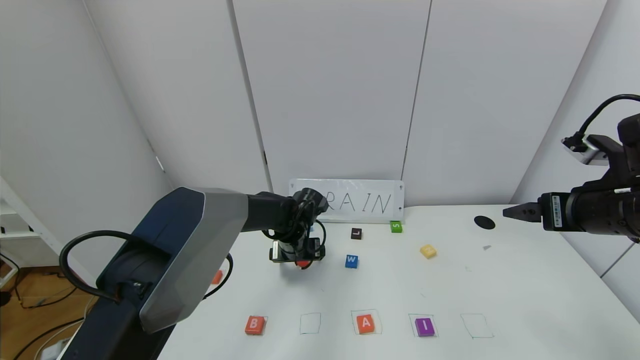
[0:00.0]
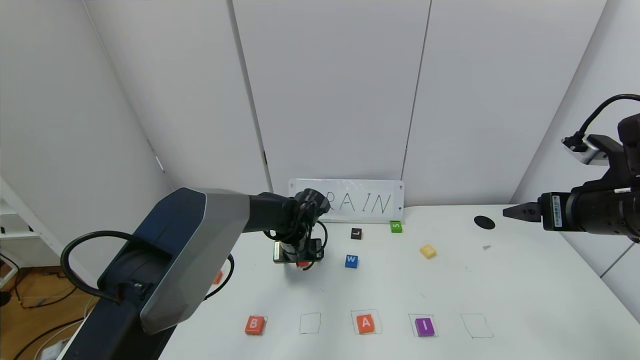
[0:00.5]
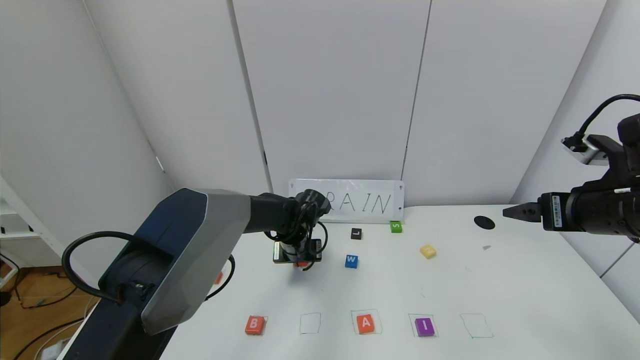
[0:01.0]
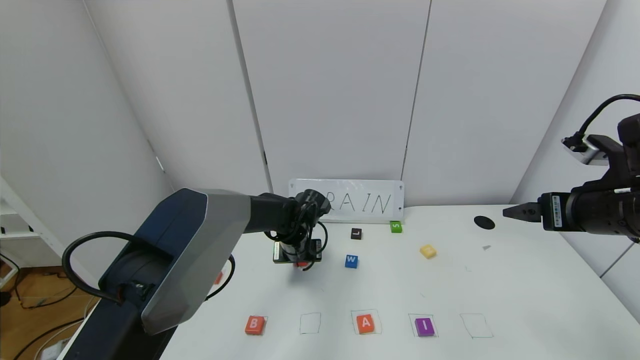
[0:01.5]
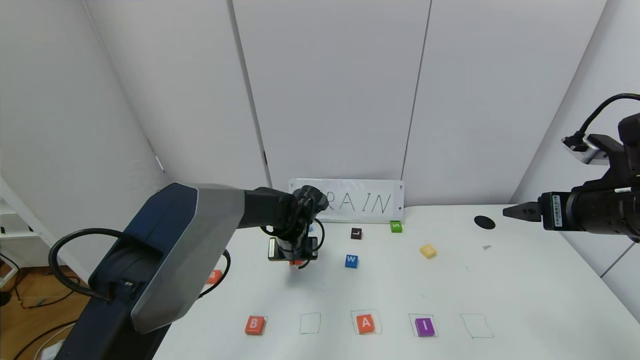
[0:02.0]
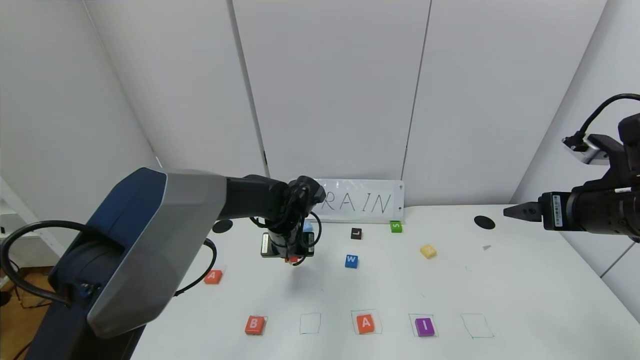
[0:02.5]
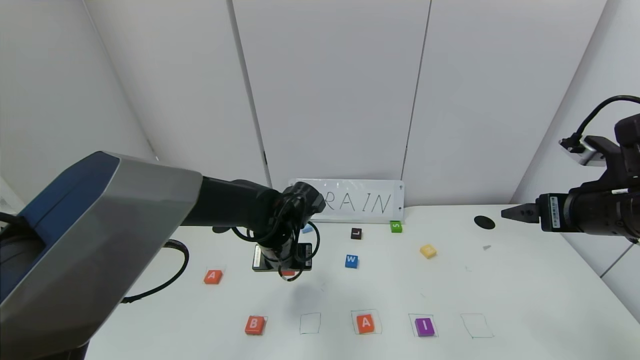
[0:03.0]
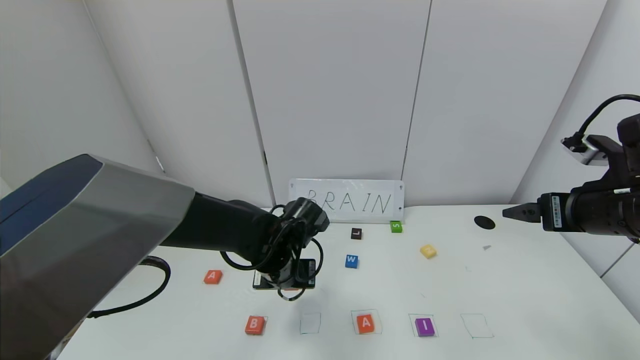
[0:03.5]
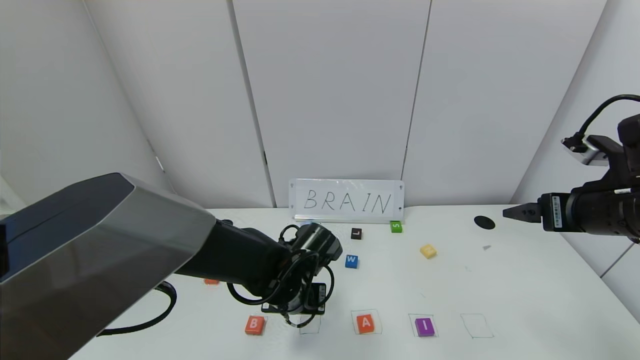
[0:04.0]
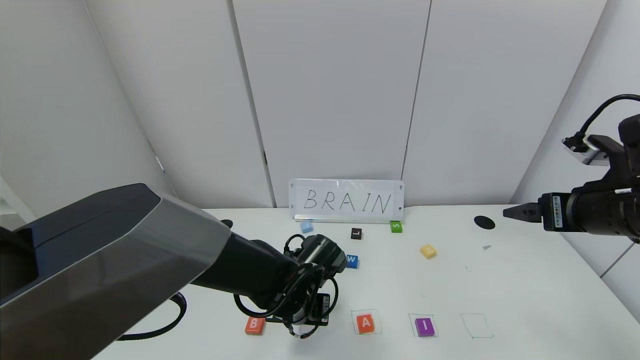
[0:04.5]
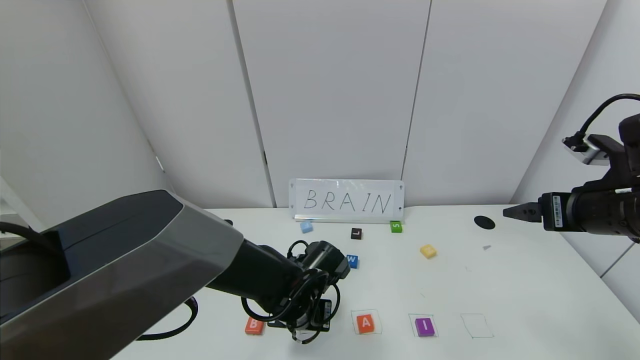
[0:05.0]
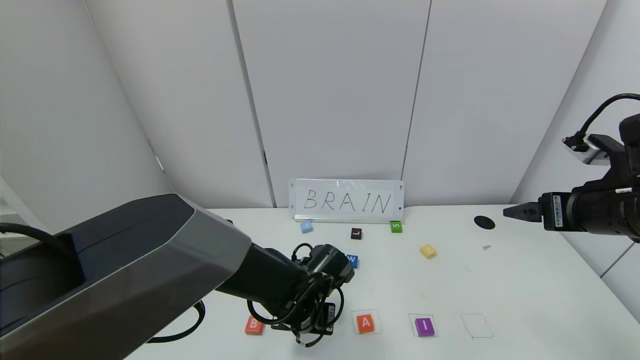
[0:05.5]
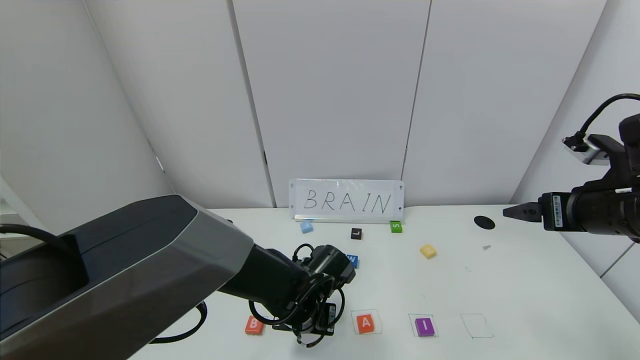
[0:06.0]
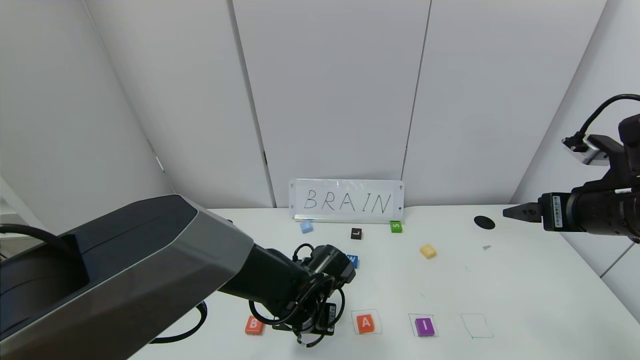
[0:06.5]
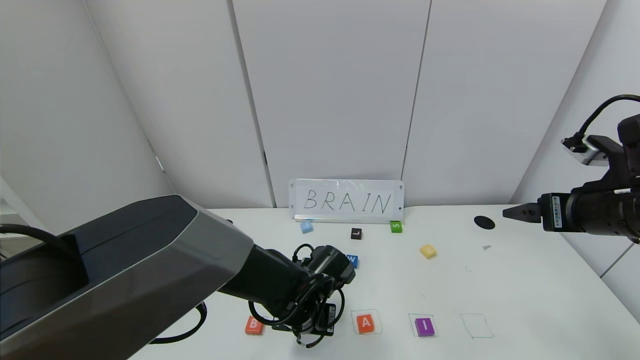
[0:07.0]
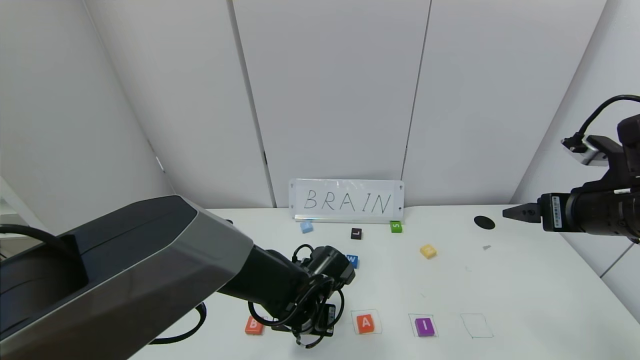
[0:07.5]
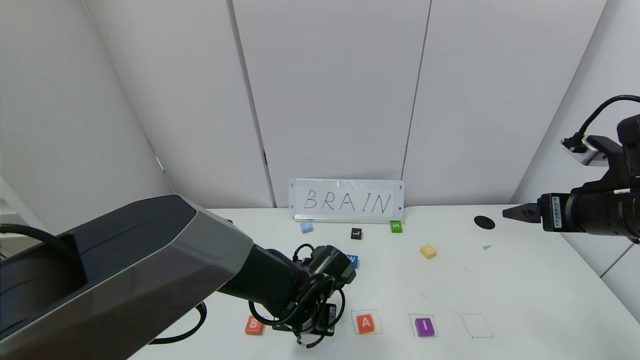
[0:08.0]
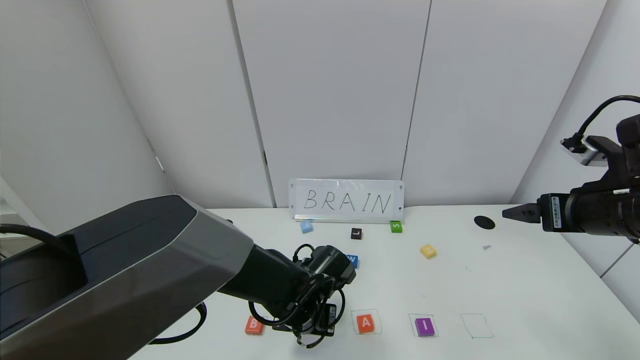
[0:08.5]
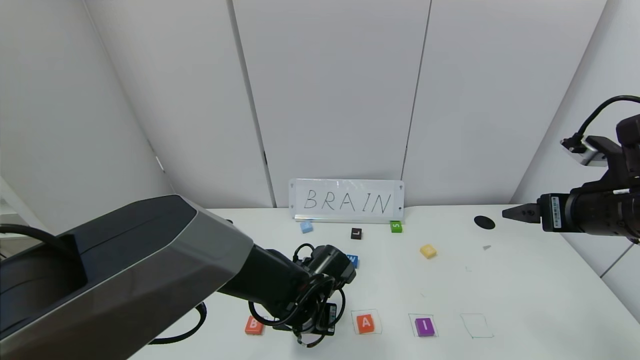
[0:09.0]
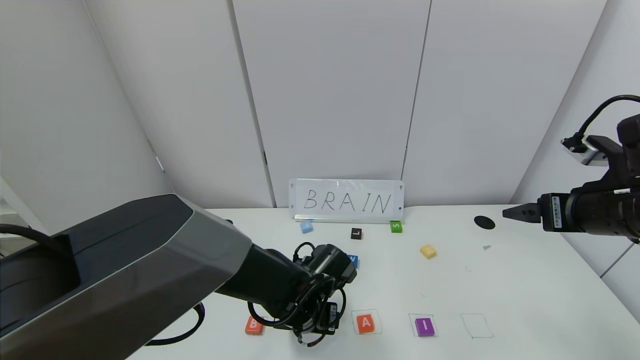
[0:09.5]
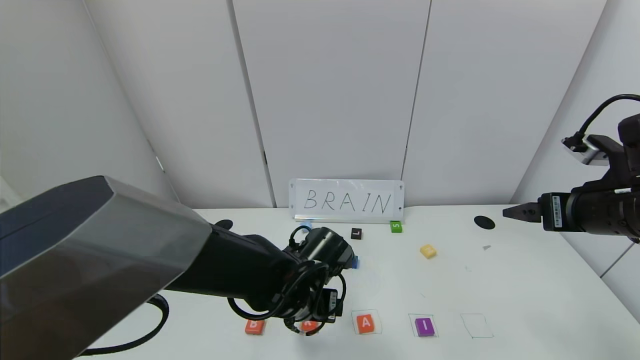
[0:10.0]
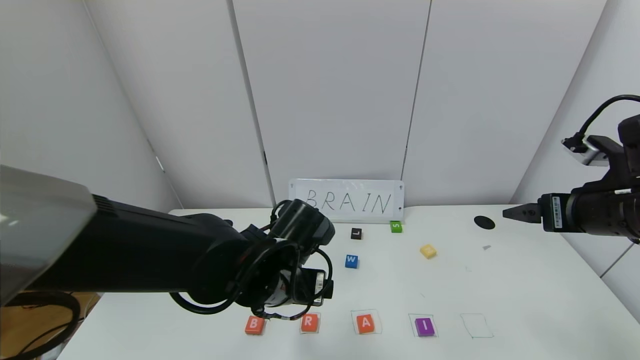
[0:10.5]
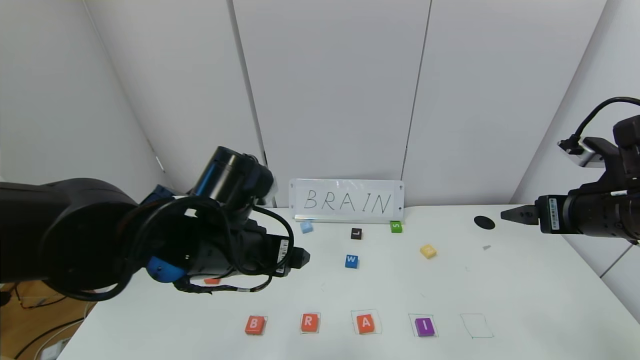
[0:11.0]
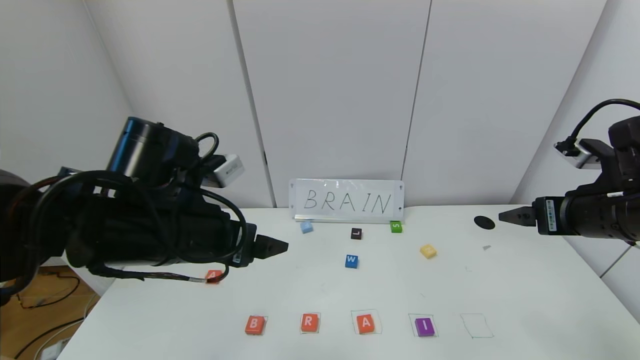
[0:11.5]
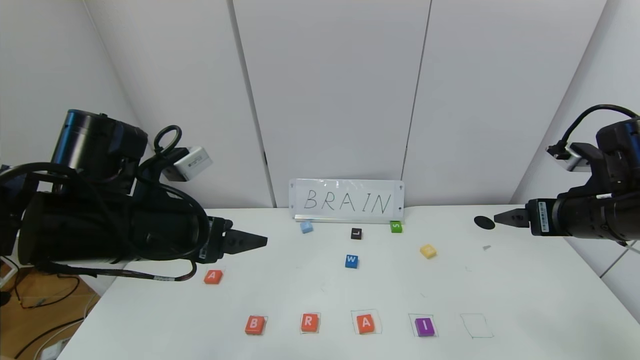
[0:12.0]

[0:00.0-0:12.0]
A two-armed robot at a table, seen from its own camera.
Task of the whole recording: use the gripper to find blocks with the letters b, a, a, and i on the table and arrange them into BAAI, then find r and N and turn the arranged baai into brian.
Step, 0:00.0 to 0:10.0: Place the block R in the second location.
0:00.0 to 0:02.0: The left gripper closes up.
0:02.0 to 0:04.0: The left gripper is displaced backward by some 15 cm.
0:04.0 to 0:06.0: There are only small adjustments of the grippers.
0:06.0 to 0:08.0: Both grippers stay about where they are.
0:08.0 to 0:10.0: The left gripper changes place by approximately 5 cm, and opens up.
0:10.0 to 0:12.0: The left gripper travels to the left and upward by some 20 cm.

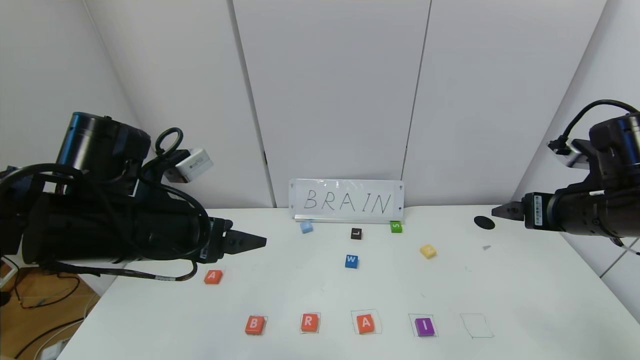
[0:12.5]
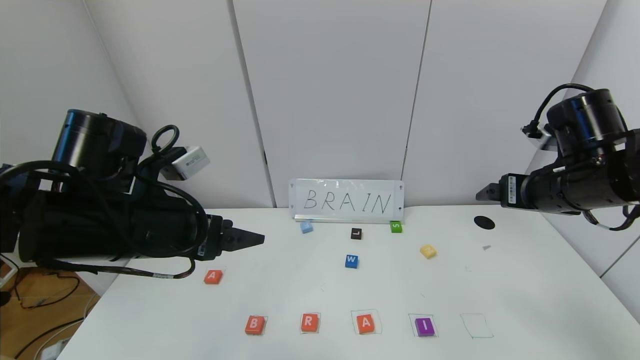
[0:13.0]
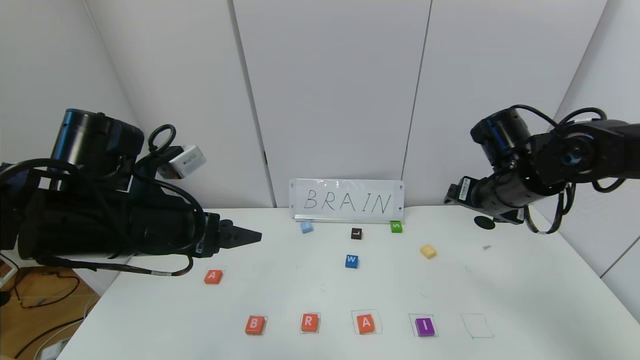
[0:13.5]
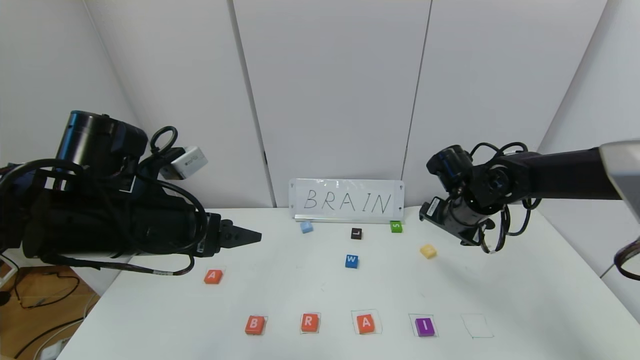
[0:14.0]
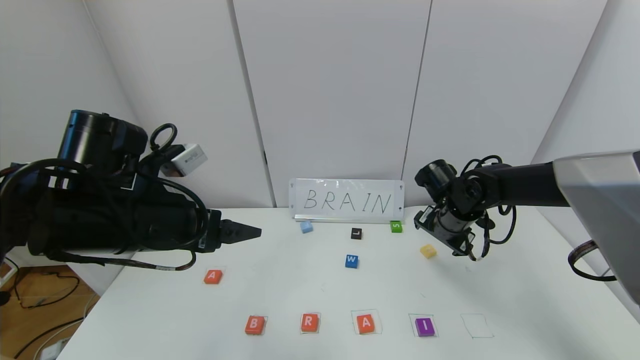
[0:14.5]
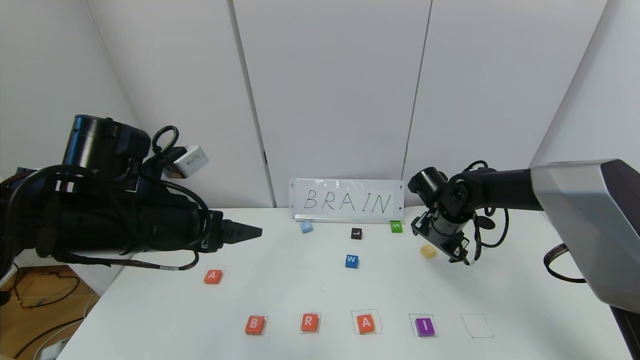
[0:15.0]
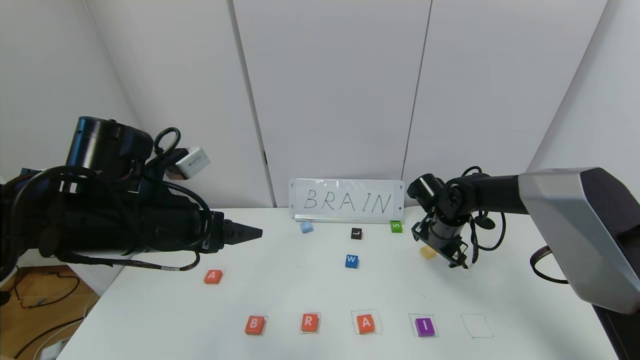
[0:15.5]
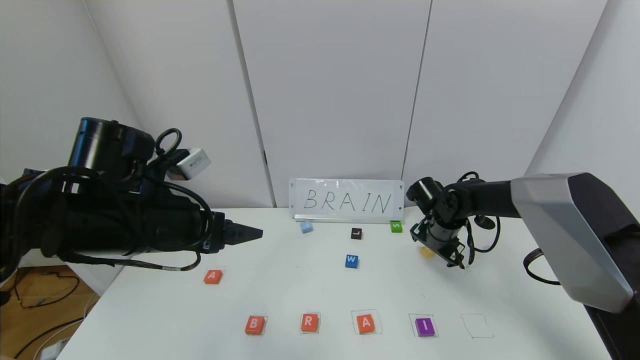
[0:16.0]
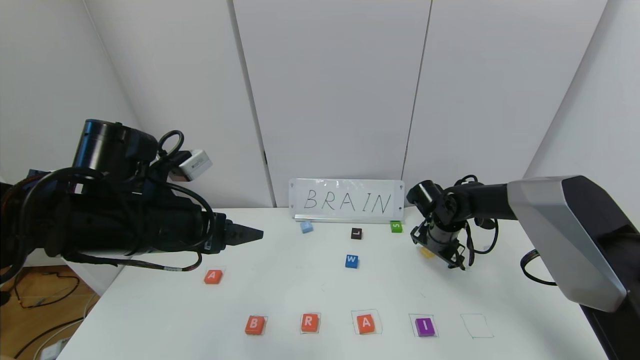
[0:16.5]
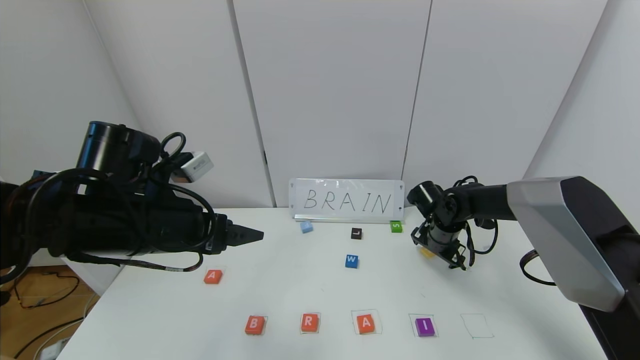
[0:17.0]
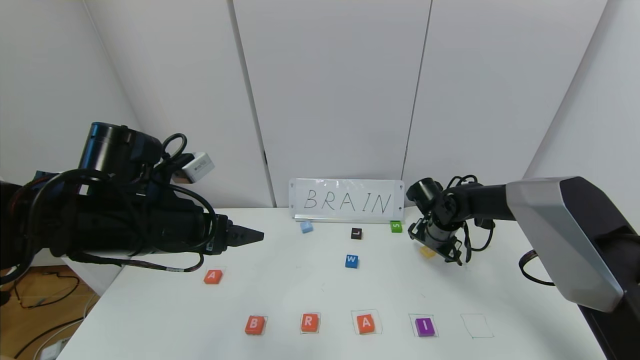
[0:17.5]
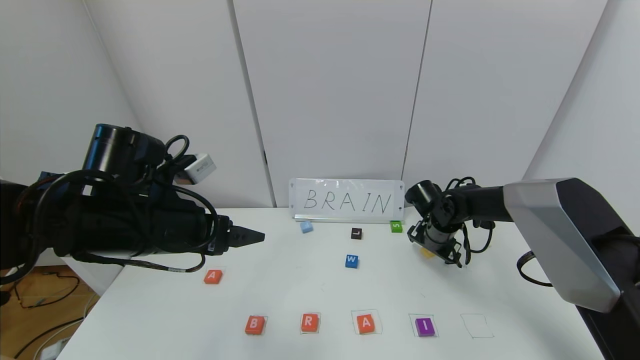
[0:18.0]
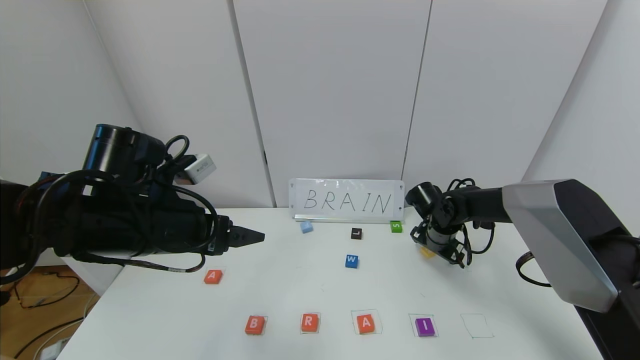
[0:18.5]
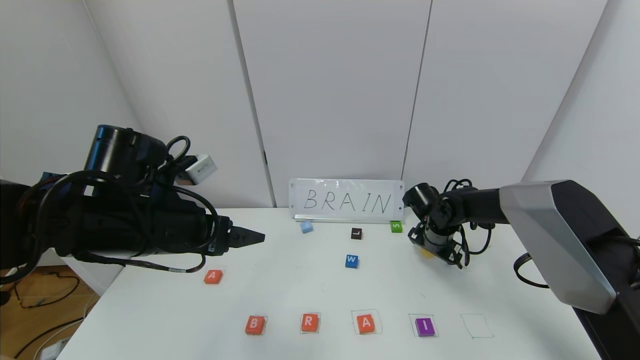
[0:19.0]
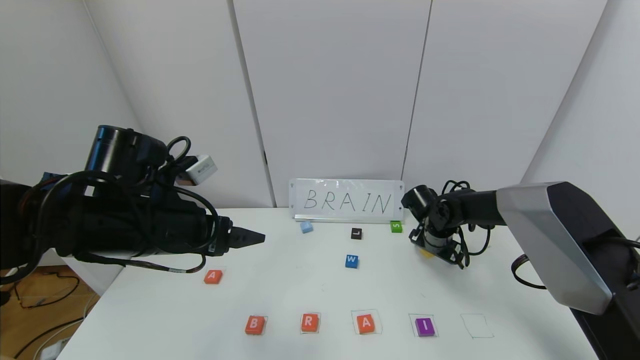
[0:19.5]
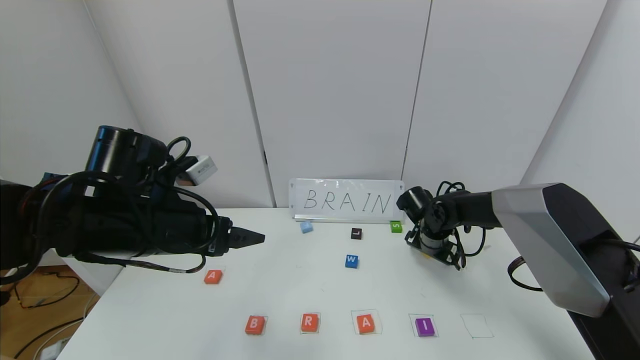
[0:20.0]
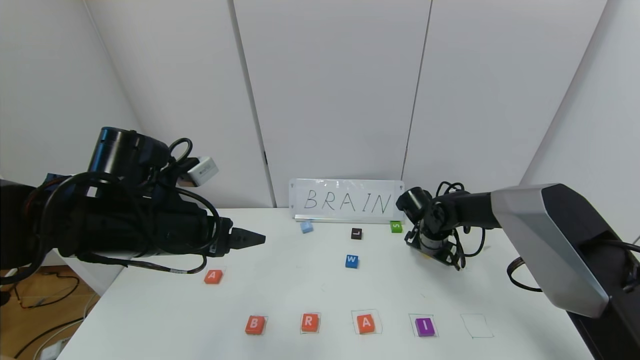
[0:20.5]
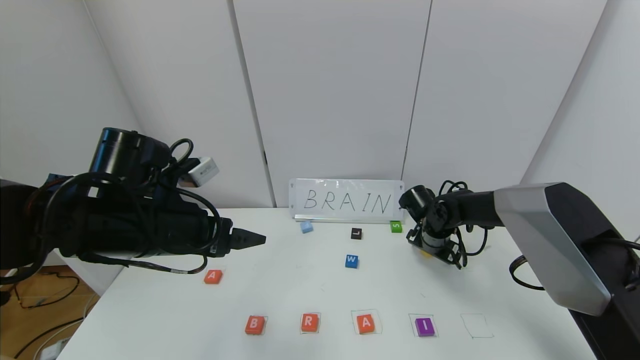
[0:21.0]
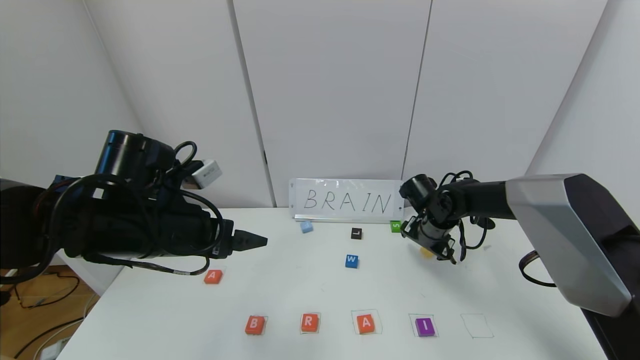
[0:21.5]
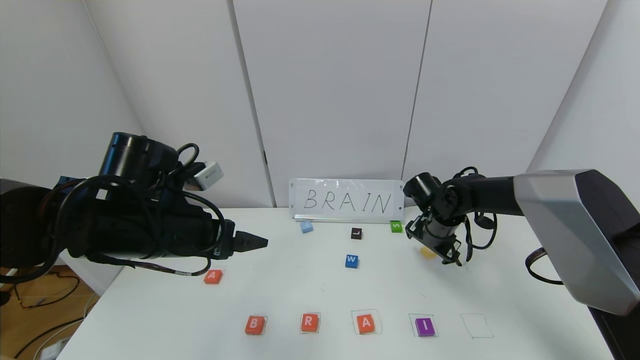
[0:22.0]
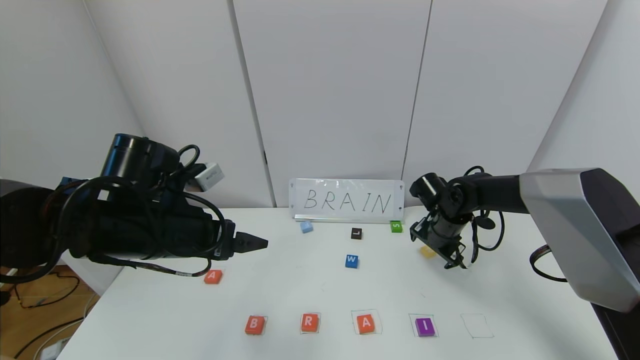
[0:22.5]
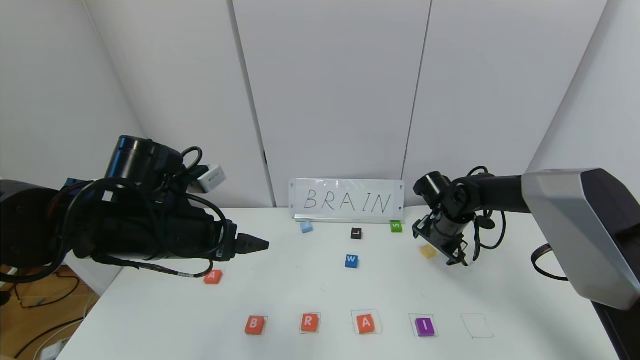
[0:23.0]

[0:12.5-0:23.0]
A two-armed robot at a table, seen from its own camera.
Task of the whole recording: use the gripper to find blocks with the letters b, a, a, and i on the table and arrange them into BAAI, then find r and N and turn the arranged baai into brian.
0:12.5 to 0:14.5: The right gripper shifts some 20 cm forward, downward and to the left.
0:14.5 to 0:16.5: The right gripper is displaced downward by some 5 cm.
0:16.5 to 0:19.0: The grippers stay close to where they were, moving slightly.
0:19.0 to 0:21.0: Both grippers stay about where they are.
0:21.0 to 0:23.0: The grippers stay close to where they were, moving slightly.
